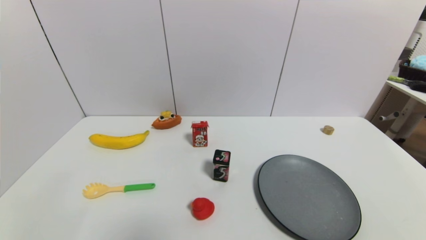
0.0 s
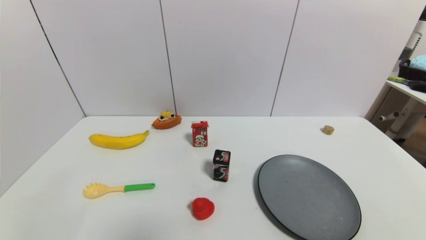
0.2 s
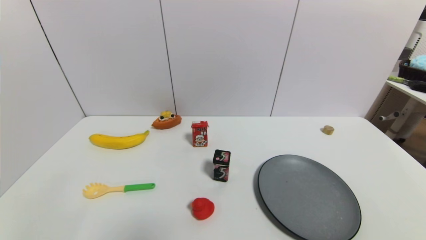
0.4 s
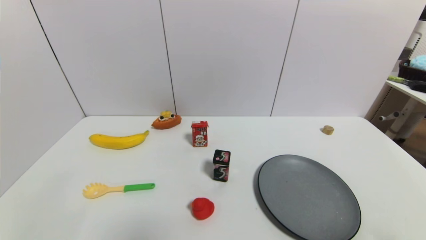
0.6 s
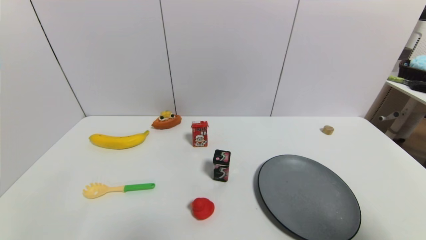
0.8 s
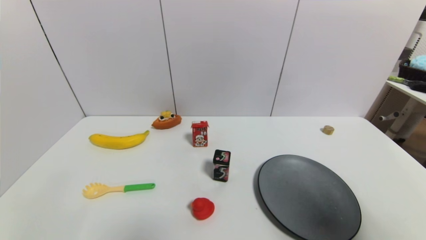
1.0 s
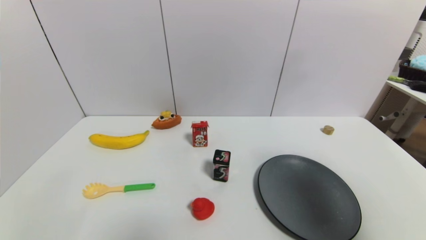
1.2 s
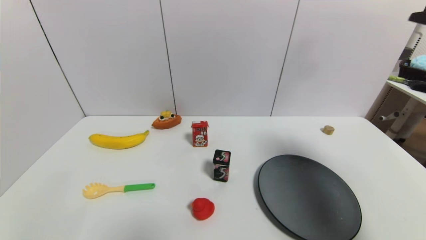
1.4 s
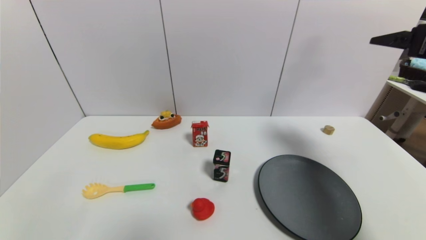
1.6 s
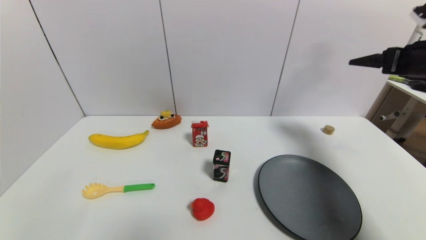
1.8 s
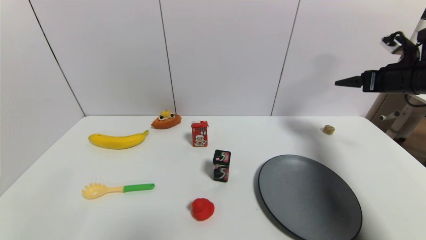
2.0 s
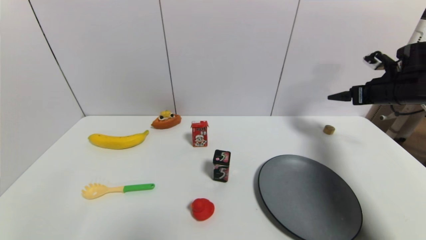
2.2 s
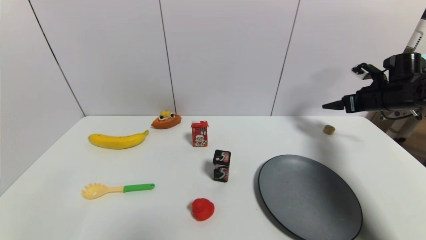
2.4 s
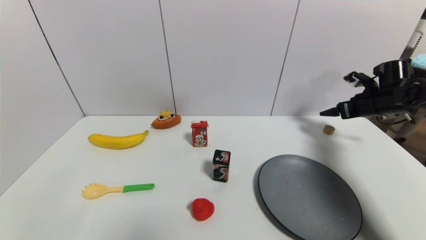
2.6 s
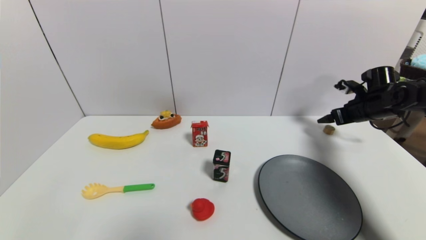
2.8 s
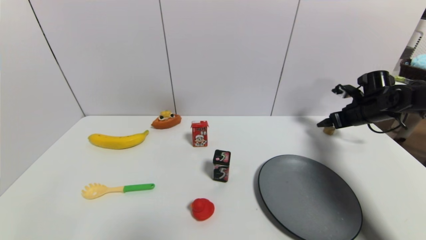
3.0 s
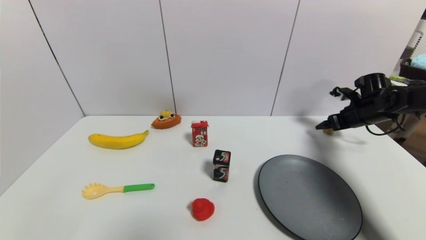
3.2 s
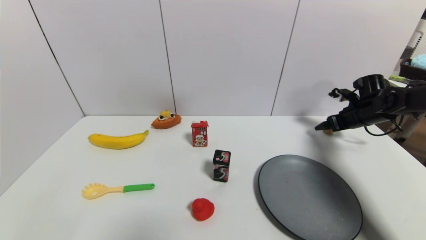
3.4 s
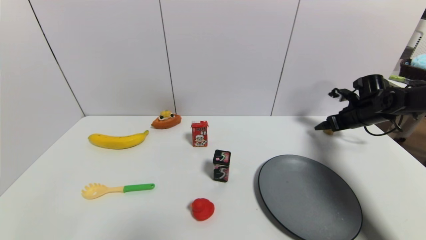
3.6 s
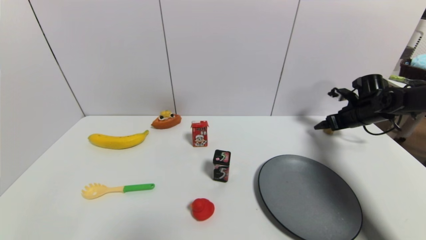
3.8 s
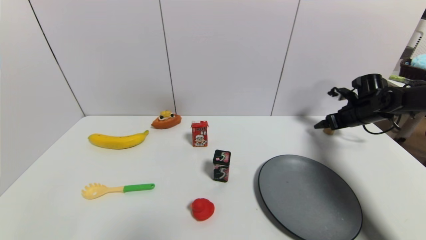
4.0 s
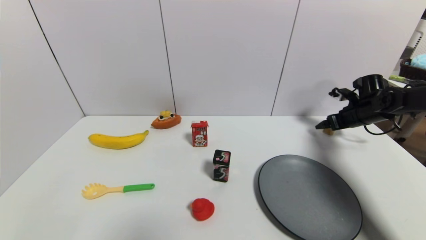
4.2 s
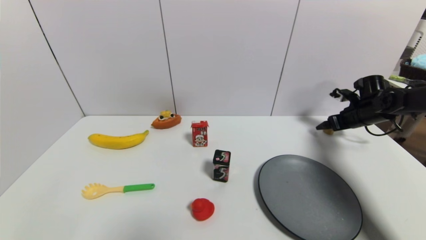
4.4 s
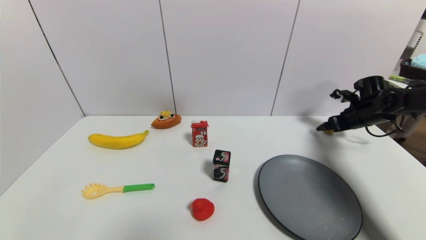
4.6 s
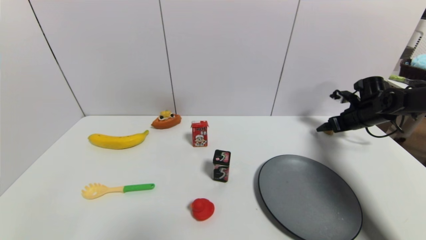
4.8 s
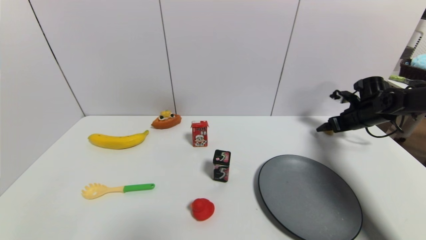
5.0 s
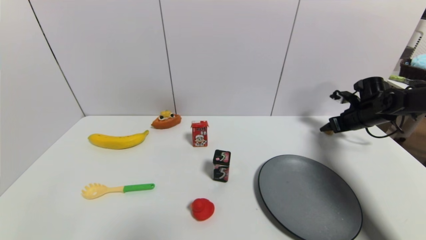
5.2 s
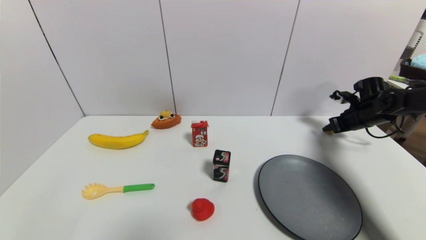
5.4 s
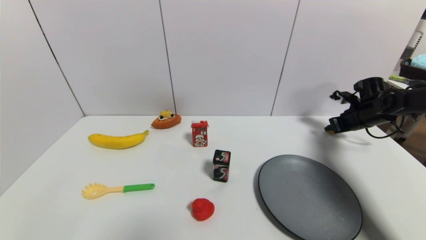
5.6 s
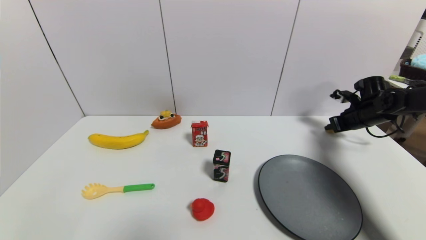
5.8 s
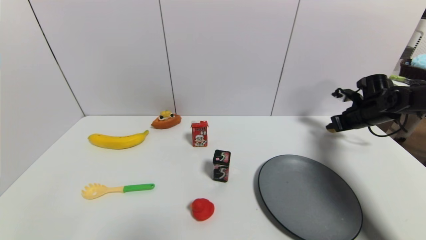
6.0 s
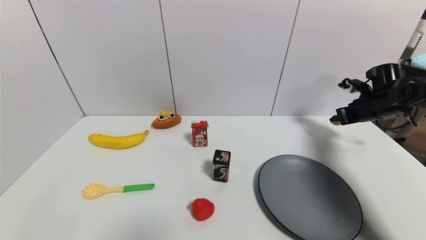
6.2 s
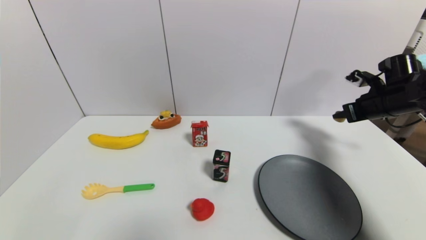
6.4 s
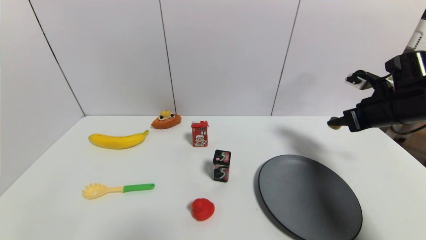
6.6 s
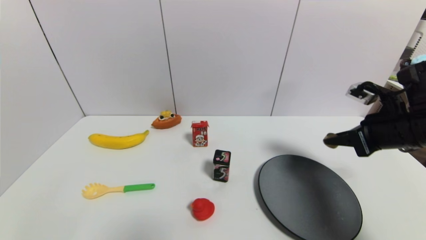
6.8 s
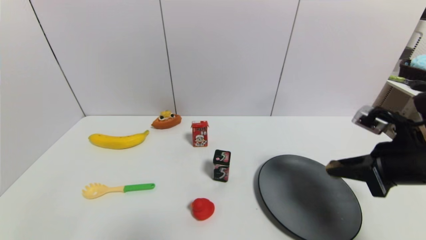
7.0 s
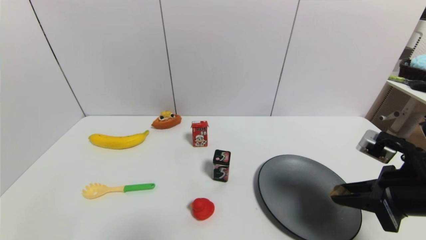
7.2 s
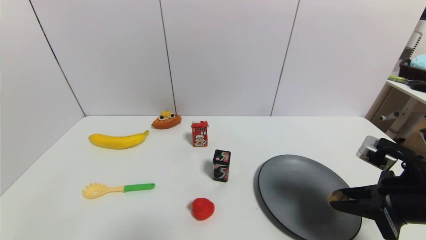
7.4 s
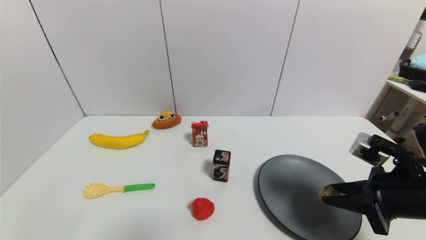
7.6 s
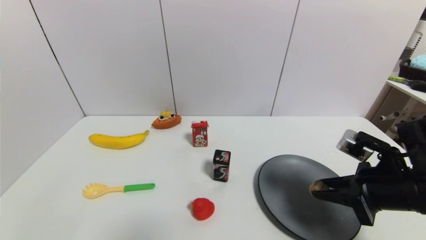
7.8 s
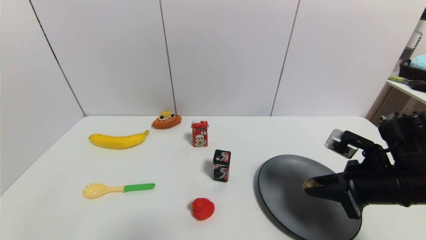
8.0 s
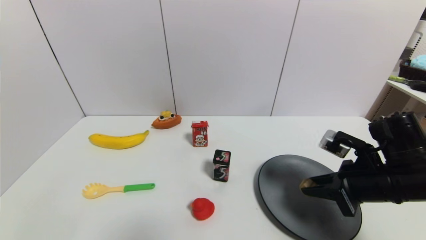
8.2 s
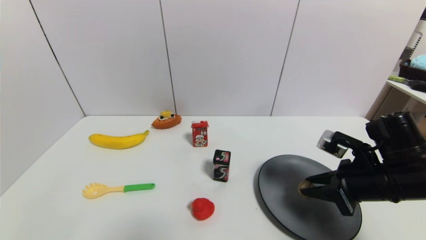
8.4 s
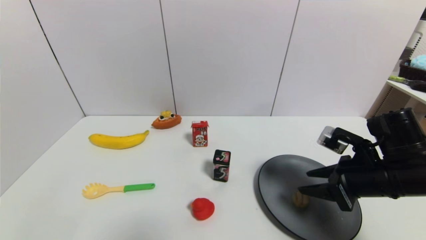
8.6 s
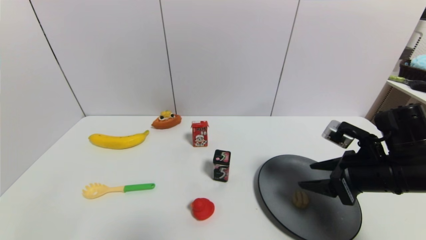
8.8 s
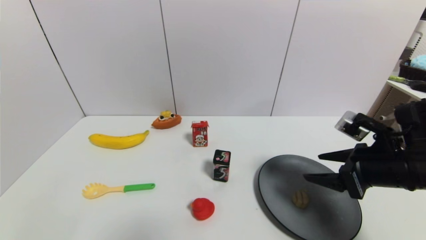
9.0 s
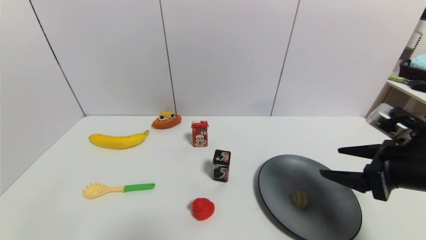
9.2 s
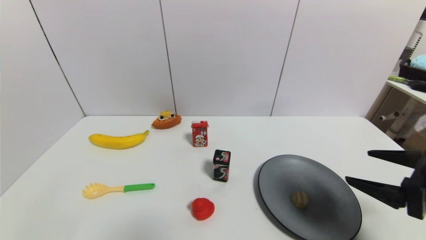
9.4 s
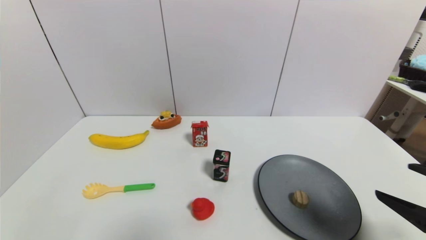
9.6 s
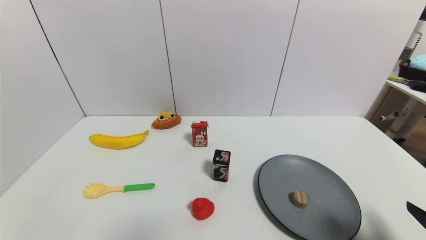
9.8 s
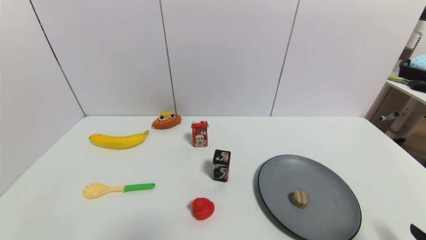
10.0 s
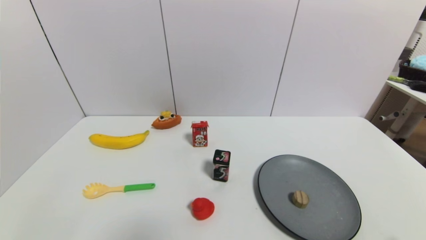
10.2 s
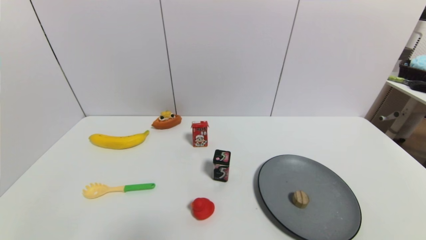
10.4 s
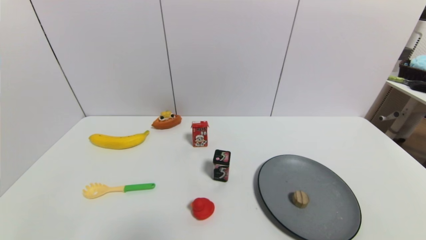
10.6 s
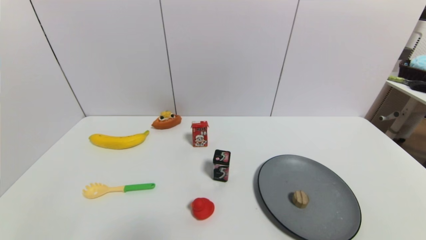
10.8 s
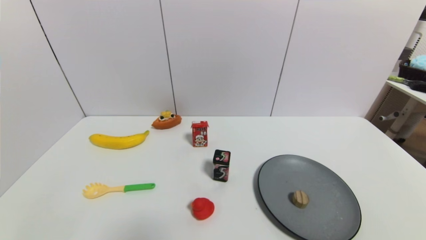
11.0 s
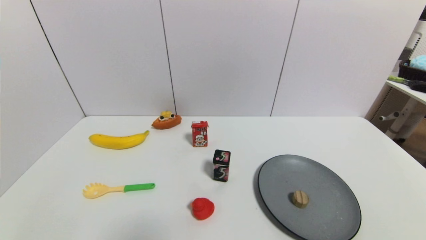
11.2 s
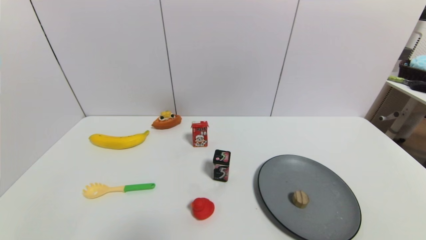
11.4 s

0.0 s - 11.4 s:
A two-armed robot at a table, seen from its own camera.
Task of the whole recording: use a gripper to pick the target object and place on the gray plate.
Step, 0.0 s - 5.6 s: Grasp the round wooden block with the right gripper.
Step, 5.8 s - 8.8 s: Place the round wooden block on the gray plate with the right gripper.
0.0 s - 1.4 s: The right gripper is displaced upward and forward by some 35 cm.
1.4 s - 2.8 s: The right gripper travels forward and downward by roughly 30 cm.
2.8 s - 4.2 s: The grippers move only a little.
4.2 s - 5.6 s: The right gripper closes its fingers.
5.6 s - 7.2 s: The right gripper travels backward and to the left by approximately 30 cm.
7.2 s - 8.6 s: The right gripper is displaced forward by about 5 cm, and opens.
8.6 s - 10.0 s: The right gripper is displaced backward by some 20 cm, and opens up.

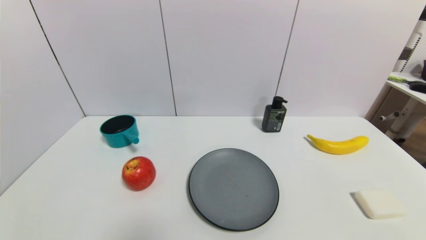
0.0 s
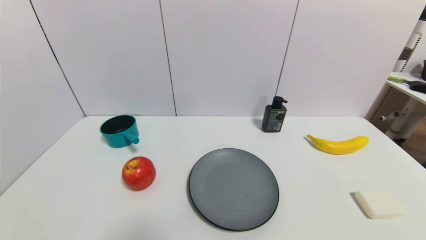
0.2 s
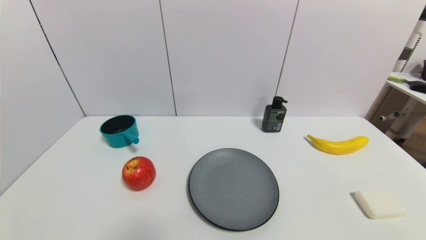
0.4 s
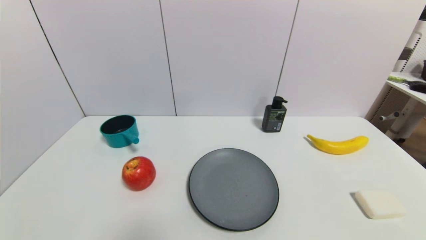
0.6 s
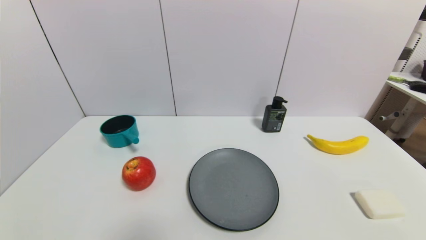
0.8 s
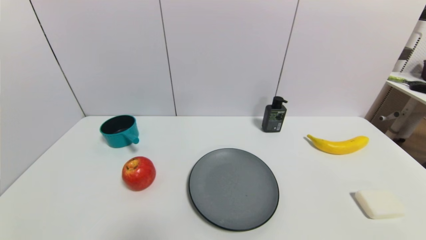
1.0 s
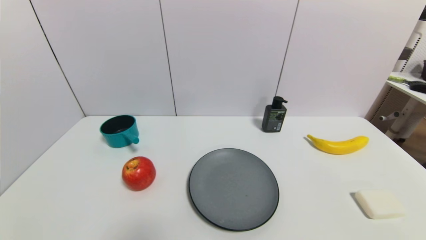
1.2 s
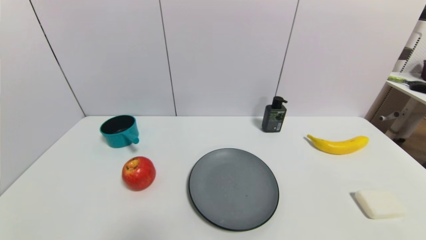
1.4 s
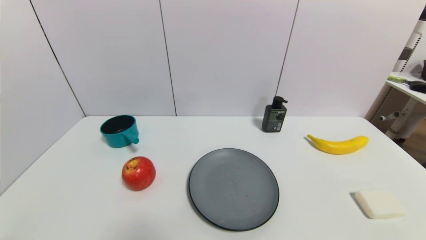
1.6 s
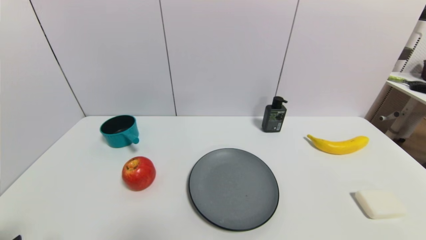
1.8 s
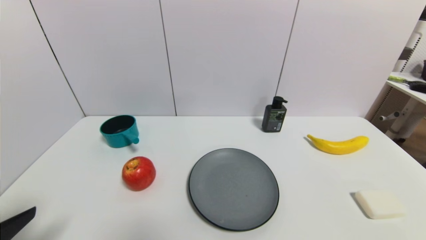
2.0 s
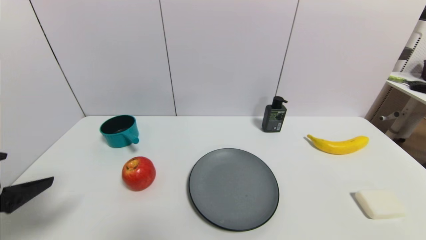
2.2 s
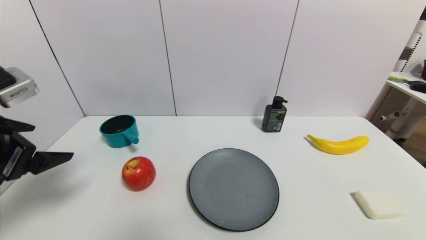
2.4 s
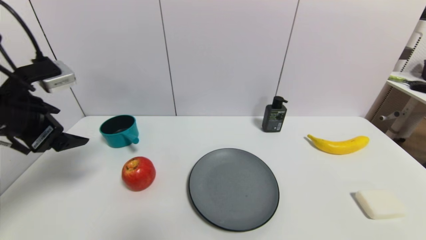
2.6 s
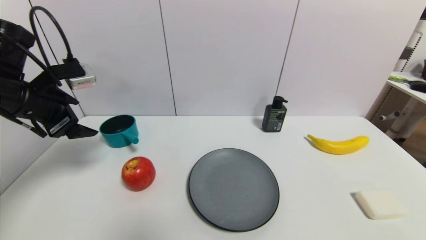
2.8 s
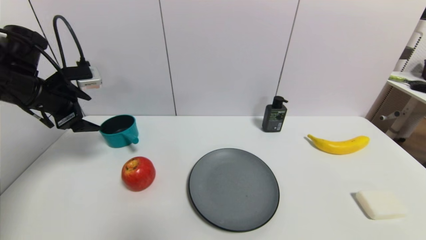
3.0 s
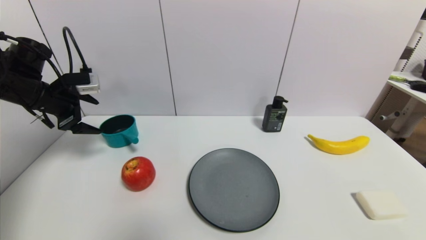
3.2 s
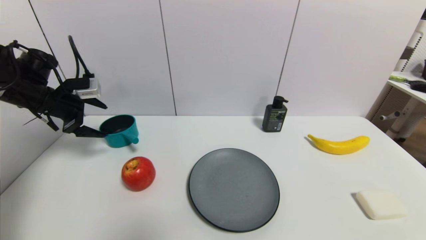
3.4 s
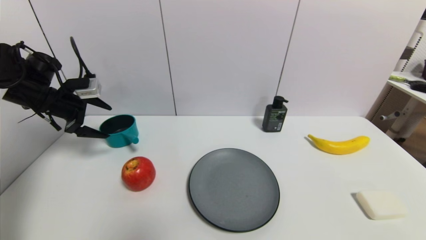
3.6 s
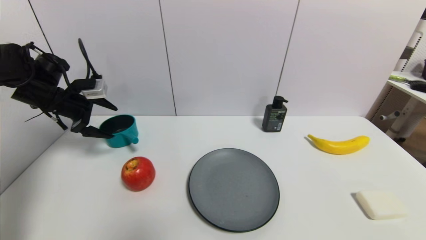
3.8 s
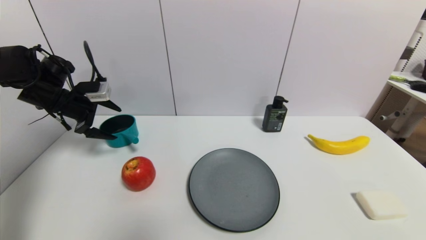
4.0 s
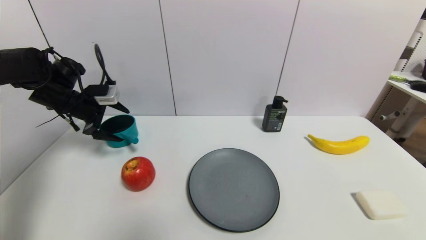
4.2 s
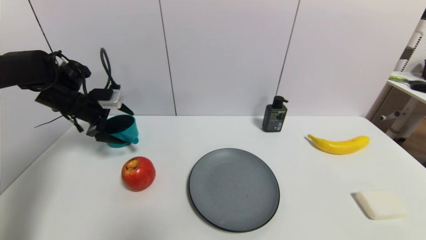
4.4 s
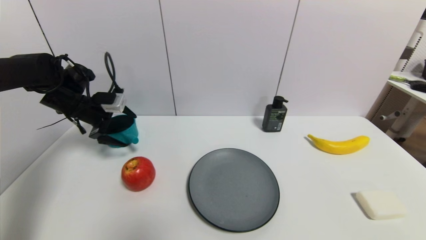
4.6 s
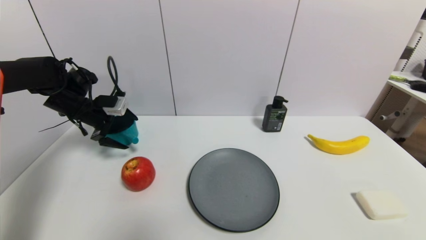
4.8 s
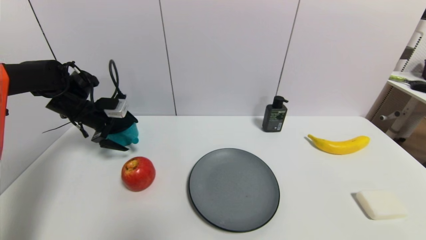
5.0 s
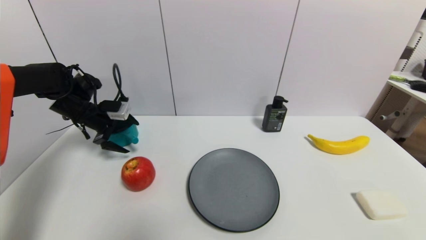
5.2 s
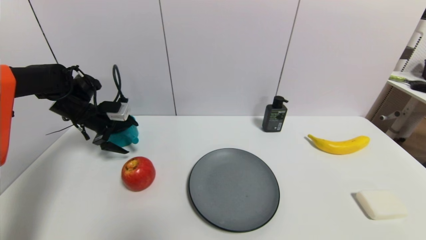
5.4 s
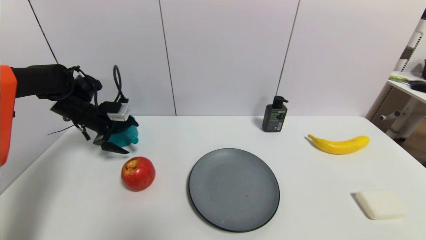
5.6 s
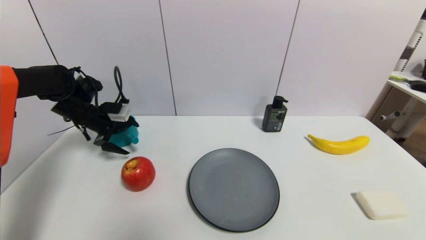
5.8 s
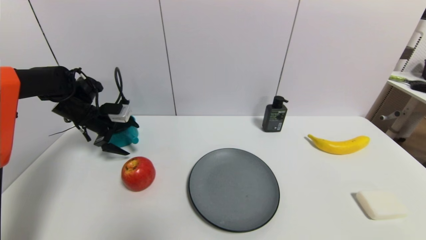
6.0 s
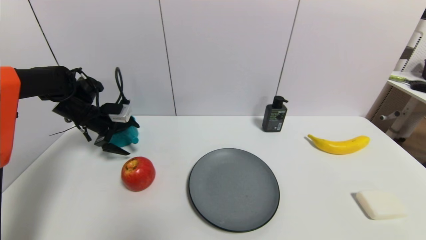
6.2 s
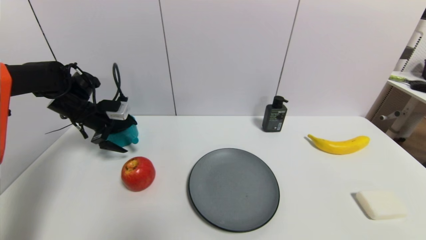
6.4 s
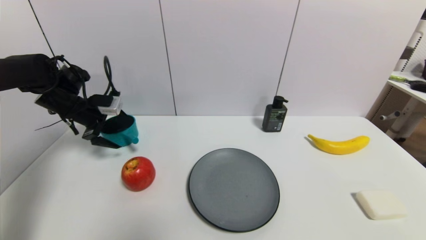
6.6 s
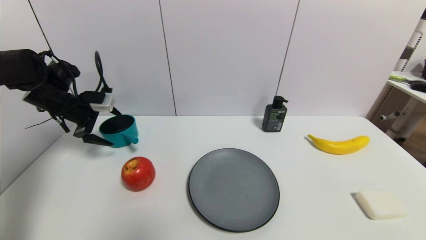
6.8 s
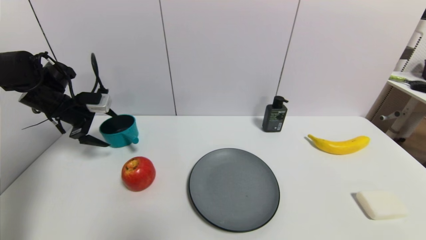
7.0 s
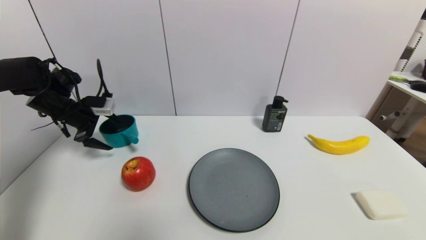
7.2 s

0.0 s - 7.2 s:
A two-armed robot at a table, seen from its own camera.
Task of the whole recording: use a gripper to pick the target object and place on the gray plate.
1.4 s - 2.8 s: The left gripper shifts approximately 35 cm forward and upward.
2.8 s - 4.4 s: The left gripper heads forward and downward, covering about 15 cm.
4.4 s - 7.2 s: The grippers move only a little.
